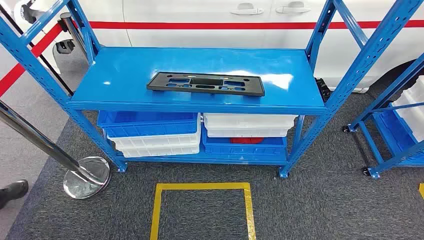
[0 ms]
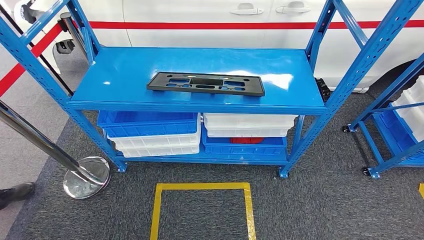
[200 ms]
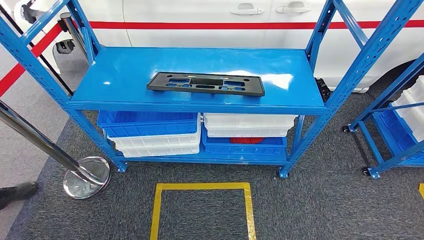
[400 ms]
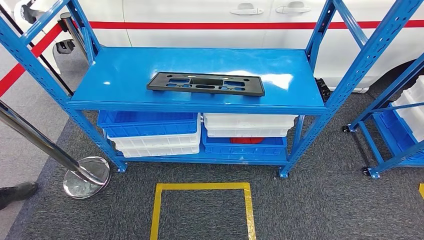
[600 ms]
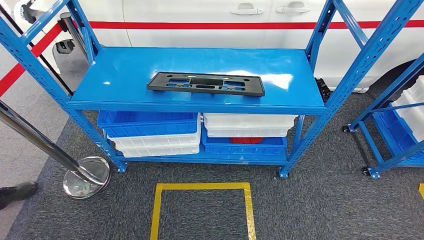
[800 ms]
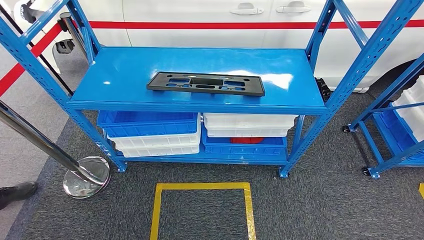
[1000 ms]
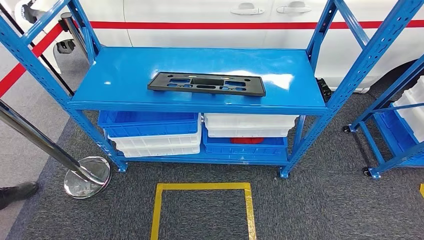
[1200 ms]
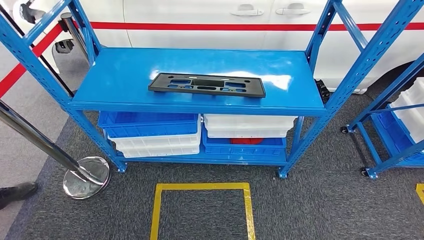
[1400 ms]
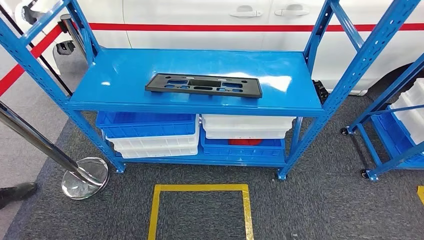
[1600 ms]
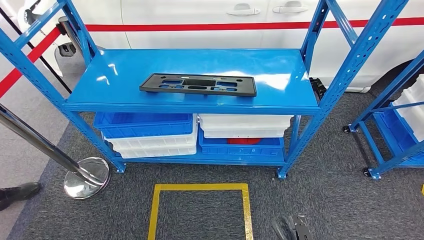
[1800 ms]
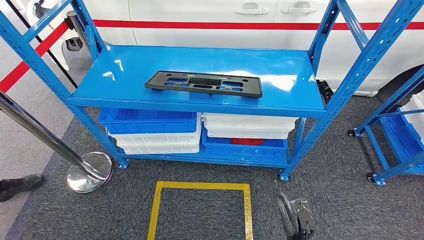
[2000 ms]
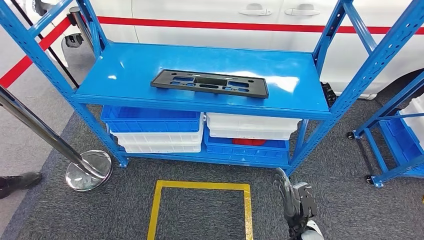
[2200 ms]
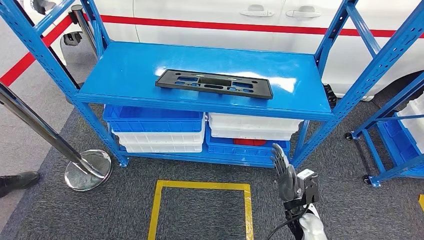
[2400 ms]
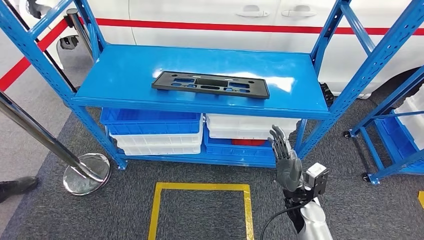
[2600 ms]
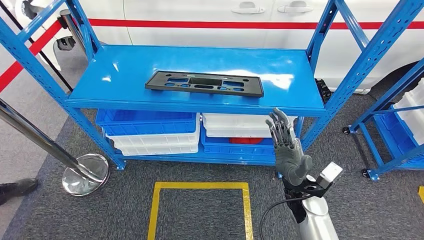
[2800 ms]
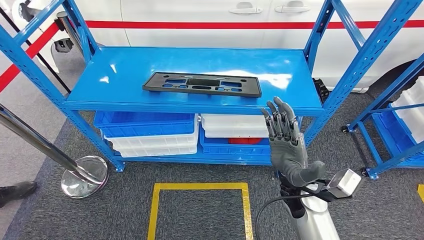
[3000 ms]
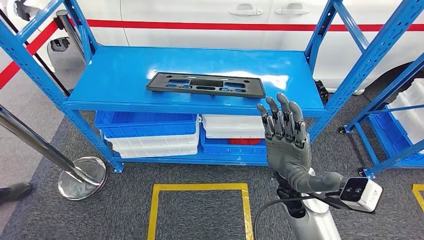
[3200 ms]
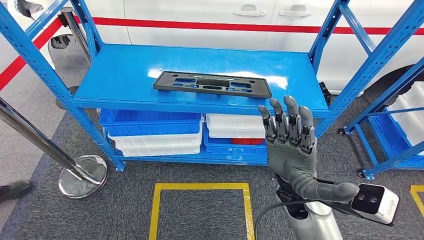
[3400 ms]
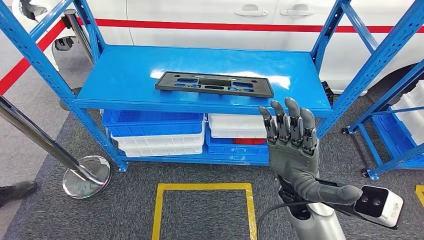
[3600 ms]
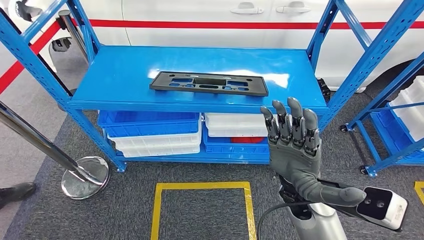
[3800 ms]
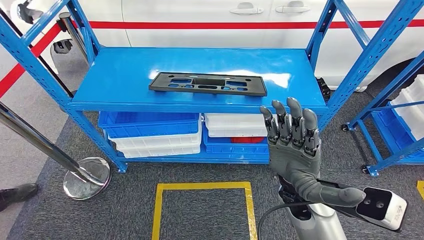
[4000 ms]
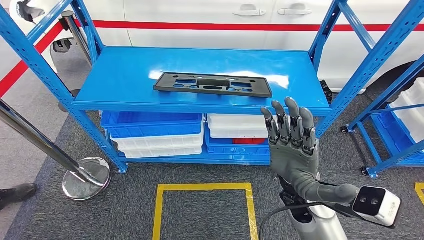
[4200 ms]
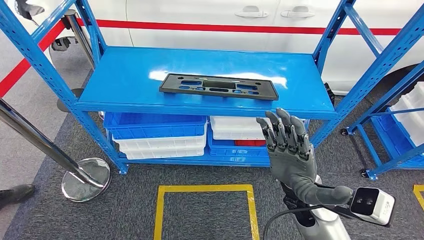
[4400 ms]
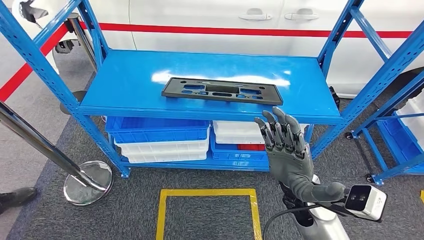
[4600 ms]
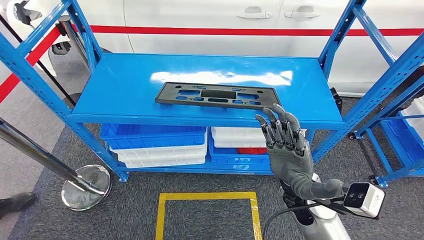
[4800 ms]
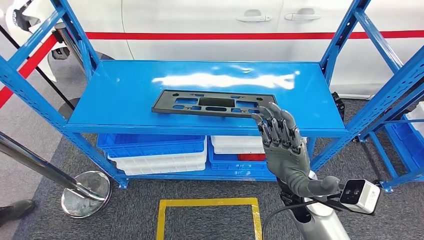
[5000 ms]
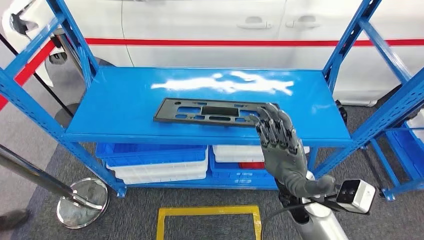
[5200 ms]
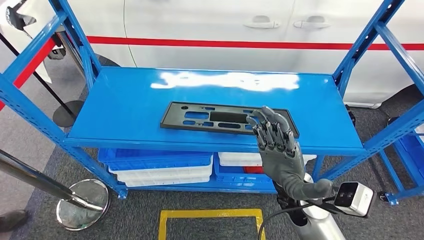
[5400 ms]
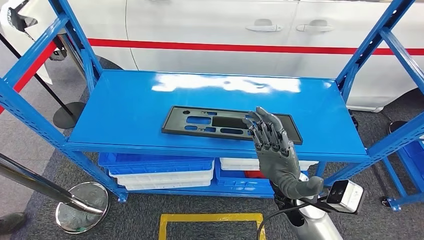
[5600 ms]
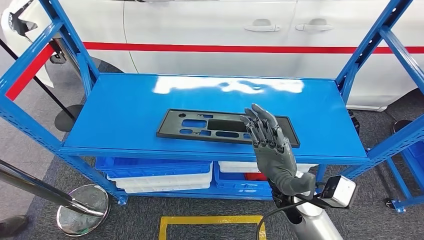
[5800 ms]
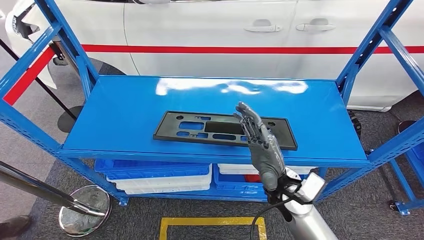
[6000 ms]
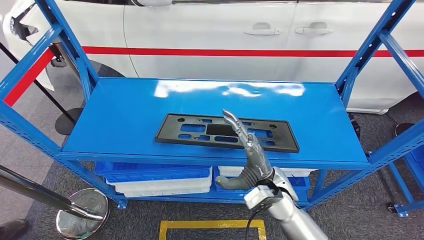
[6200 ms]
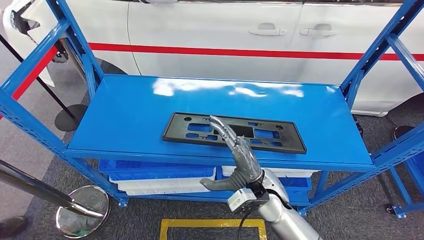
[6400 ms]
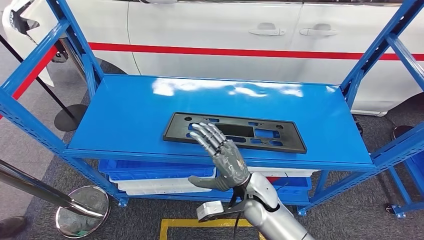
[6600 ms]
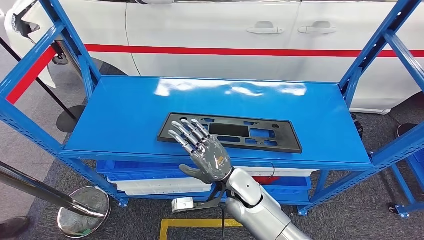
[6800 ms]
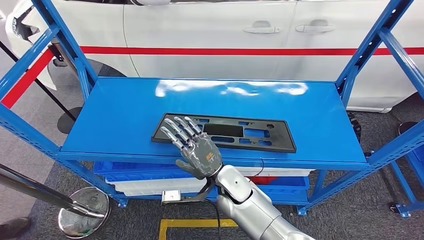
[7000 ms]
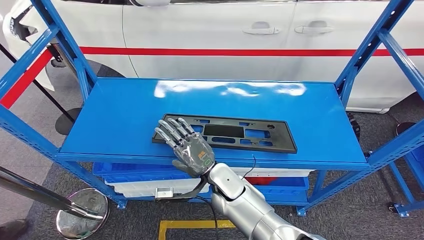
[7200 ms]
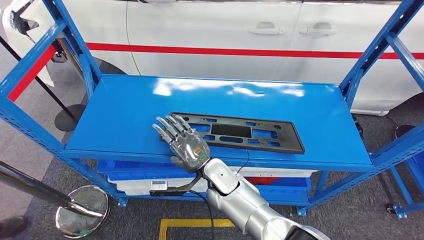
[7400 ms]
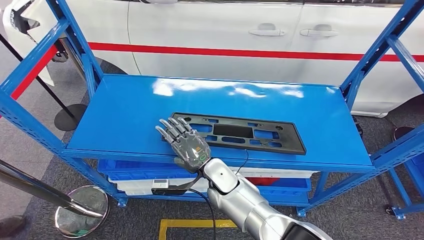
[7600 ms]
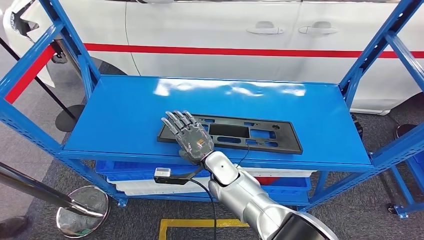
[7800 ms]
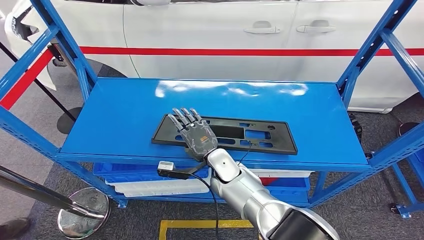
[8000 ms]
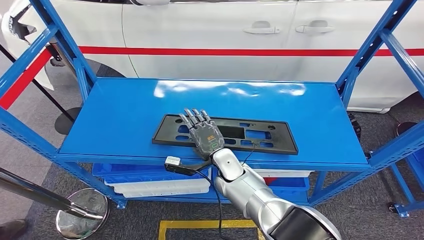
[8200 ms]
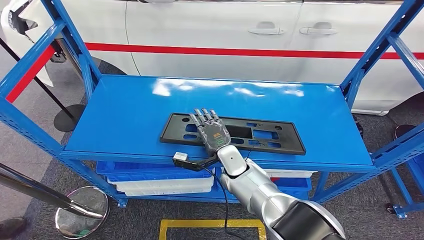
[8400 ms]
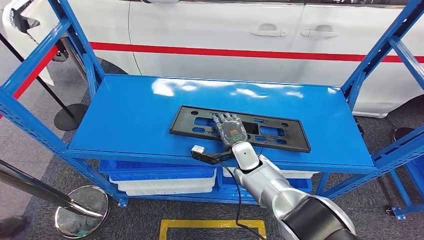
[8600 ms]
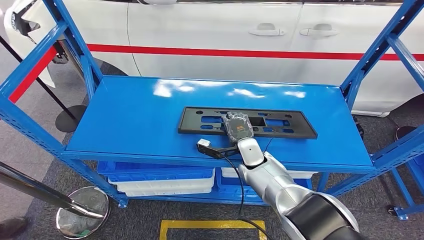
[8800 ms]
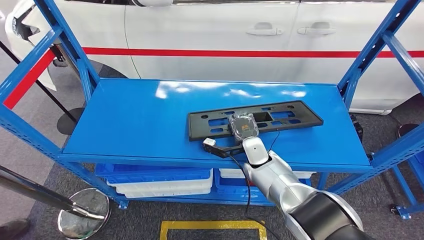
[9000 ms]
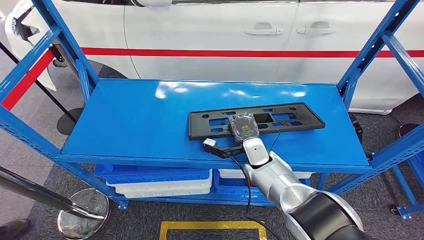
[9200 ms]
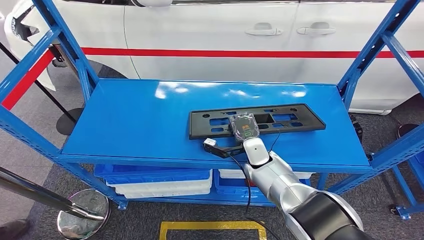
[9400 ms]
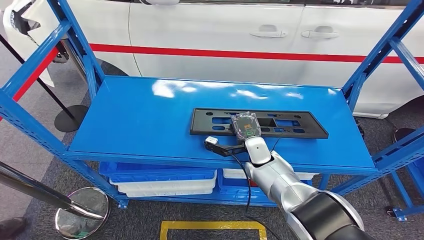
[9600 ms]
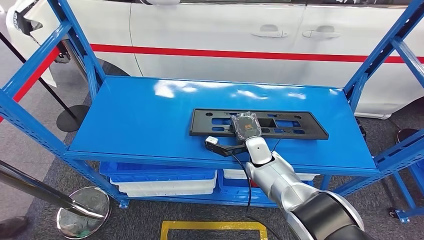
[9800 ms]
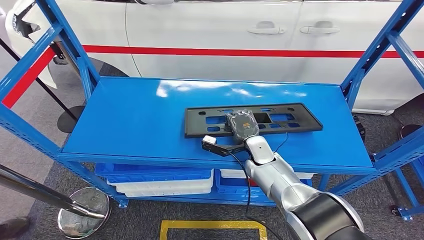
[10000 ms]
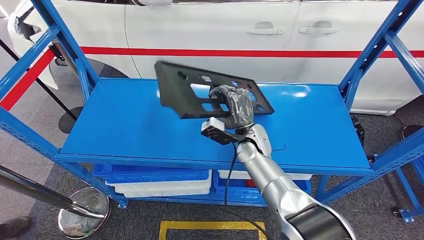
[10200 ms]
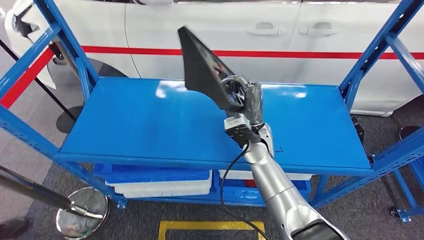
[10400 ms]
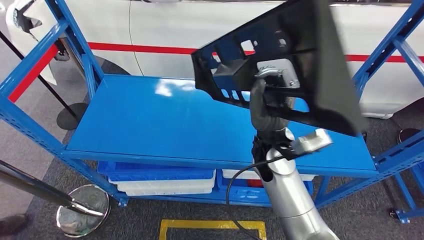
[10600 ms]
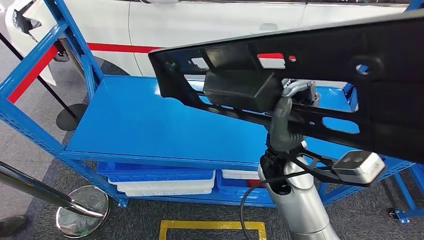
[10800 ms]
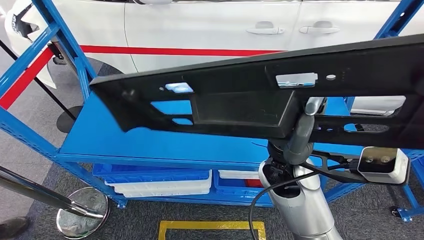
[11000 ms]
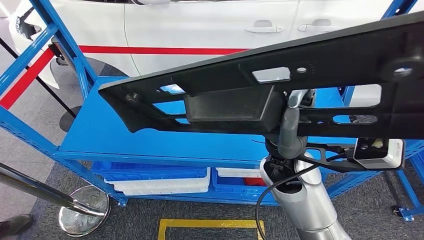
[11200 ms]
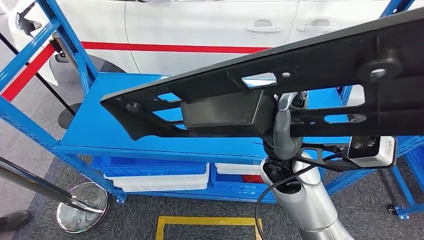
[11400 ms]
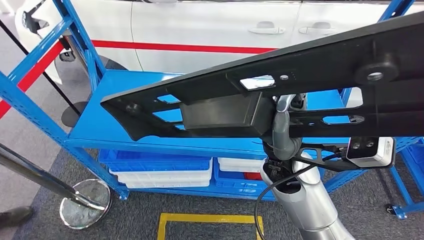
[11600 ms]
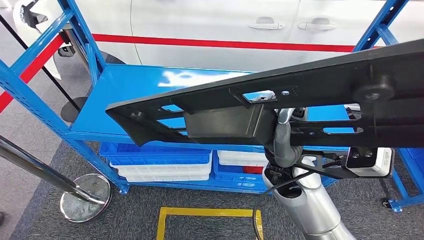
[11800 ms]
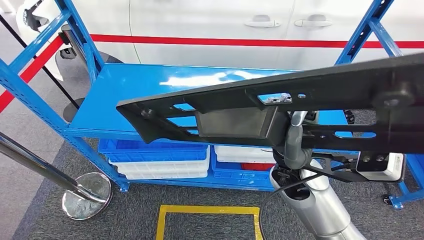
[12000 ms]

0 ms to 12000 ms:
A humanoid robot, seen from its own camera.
Step, 0 ms to 10600 ms: Pick up the large material from the shelf.
1600 ms to 3000 ms: The right hand goes some 35 cm upward and forward.

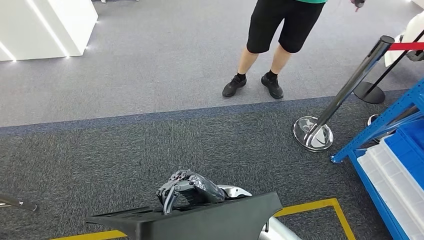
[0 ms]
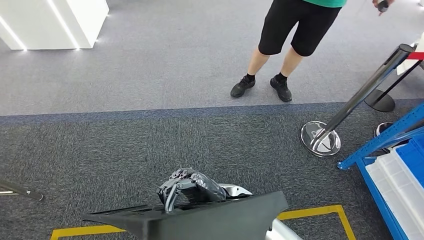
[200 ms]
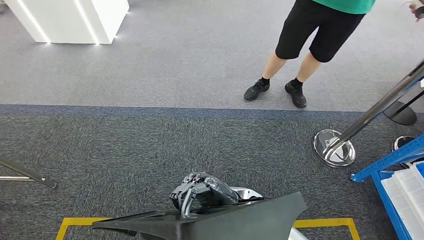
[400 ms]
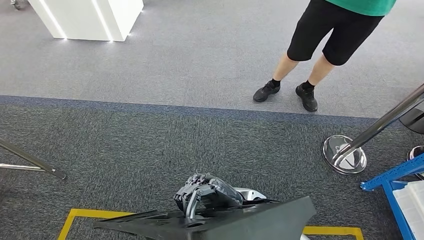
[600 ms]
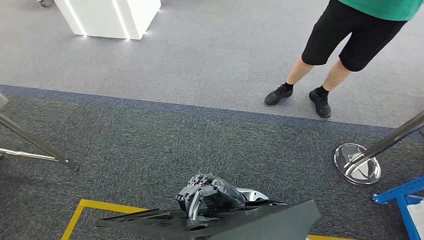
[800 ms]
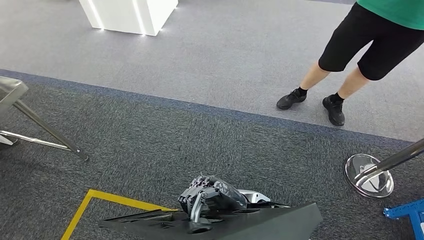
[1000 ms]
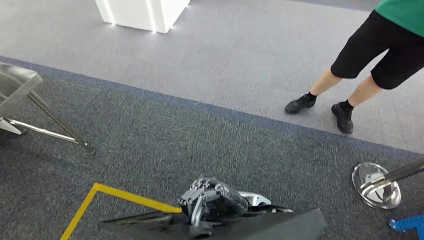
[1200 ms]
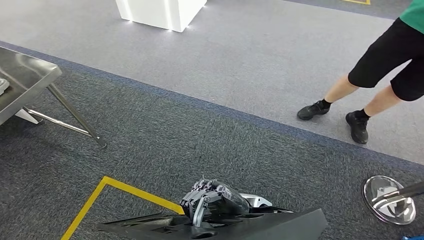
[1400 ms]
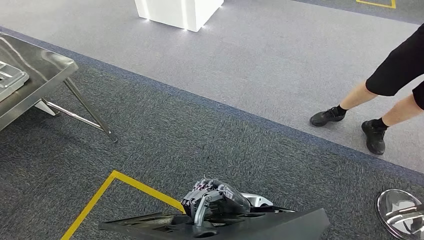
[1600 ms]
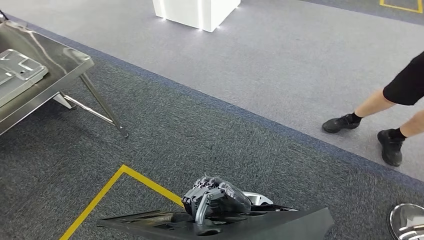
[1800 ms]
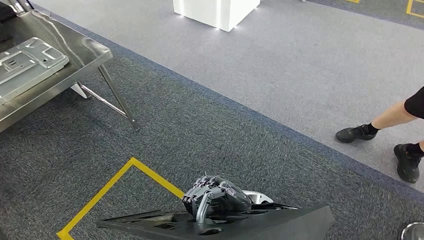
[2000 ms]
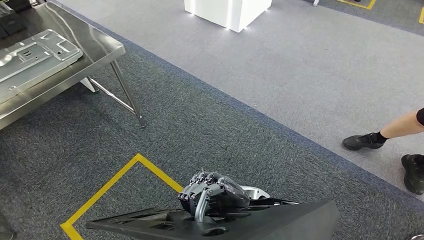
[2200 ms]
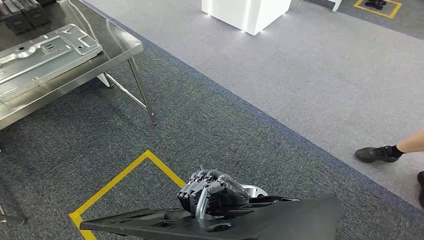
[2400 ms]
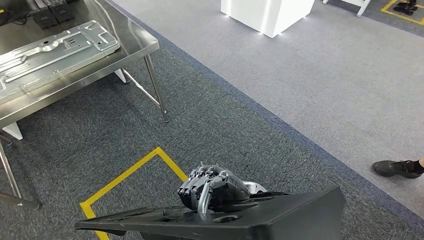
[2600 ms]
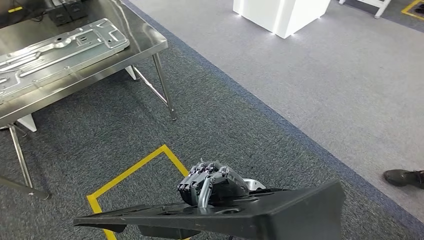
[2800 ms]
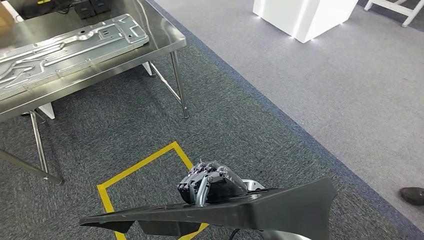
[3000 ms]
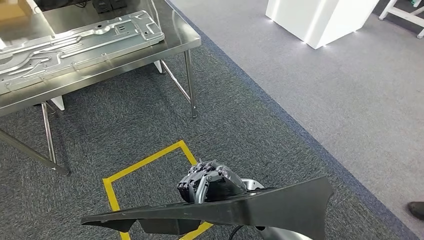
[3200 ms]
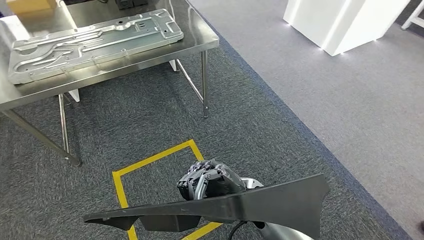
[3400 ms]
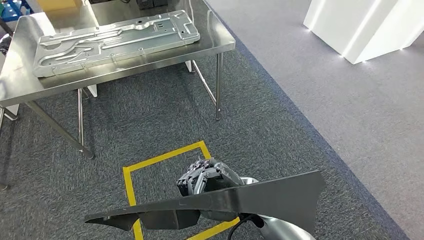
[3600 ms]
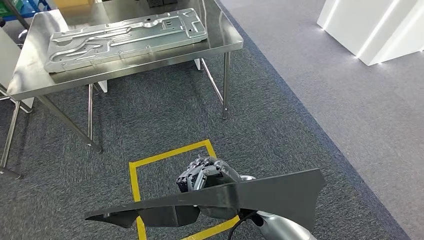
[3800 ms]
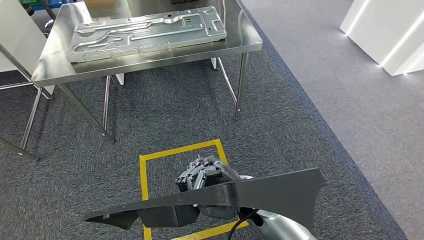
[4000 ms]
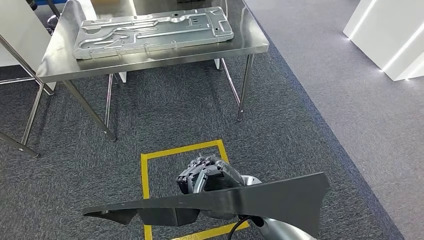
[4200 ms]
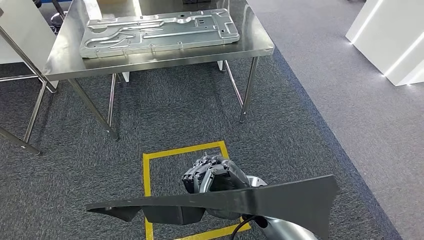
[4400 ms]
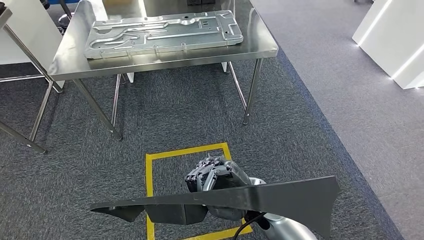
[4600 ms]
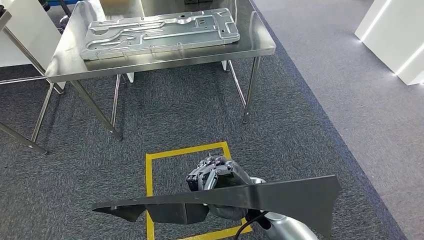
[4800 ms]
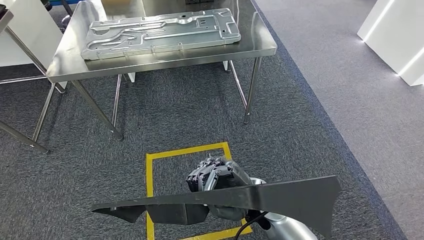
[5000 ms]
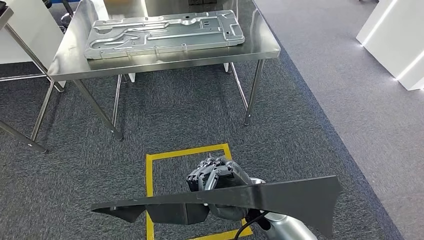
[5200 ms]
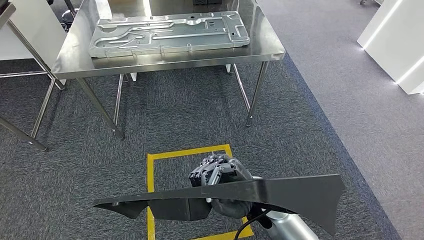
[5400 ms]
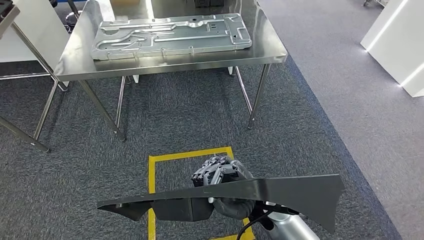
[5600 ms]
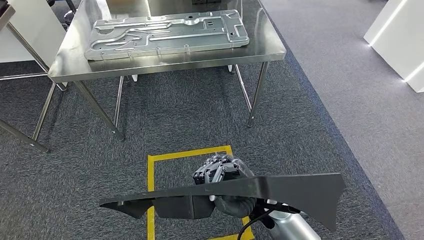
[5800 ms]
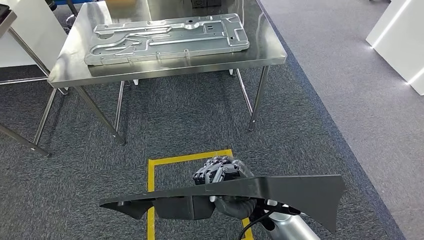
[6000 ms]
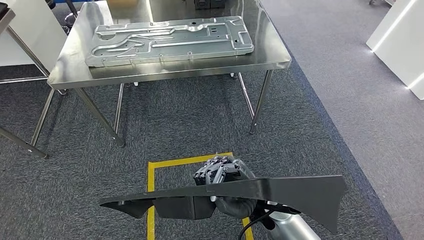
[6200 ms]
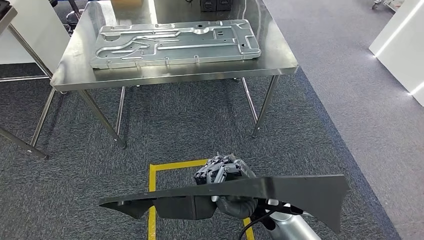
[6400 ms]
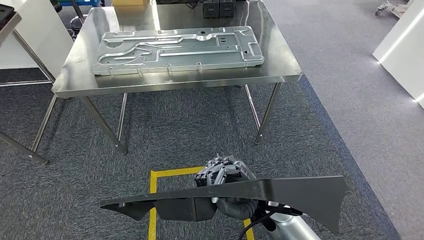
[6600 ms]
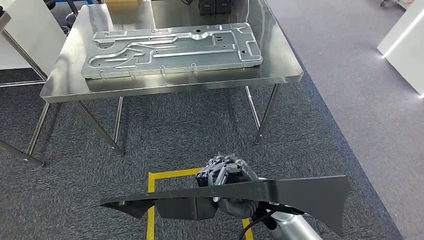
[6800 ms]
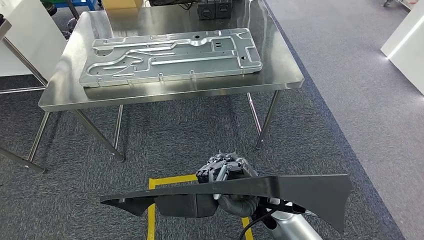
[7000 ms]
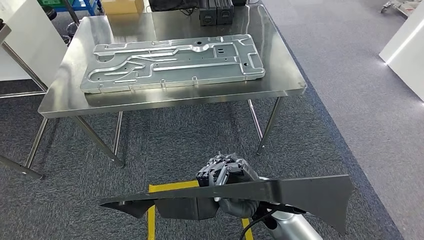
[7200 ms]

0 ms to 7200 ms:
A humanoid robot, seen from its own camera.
Step, 0 ms to 4000 ms: Move the large material to the workbench.
